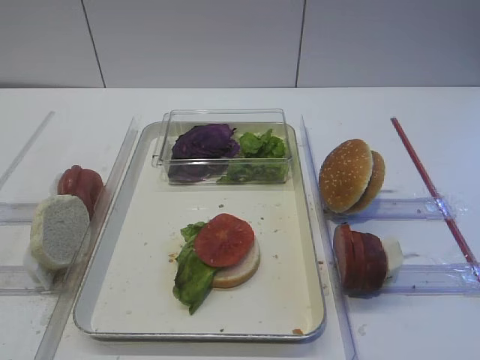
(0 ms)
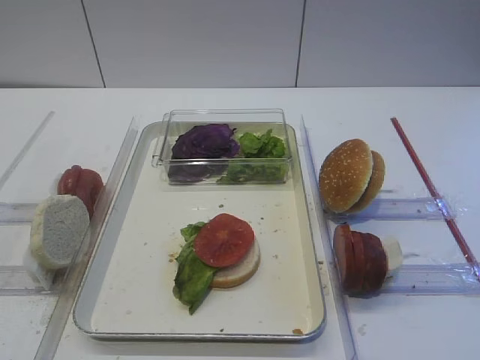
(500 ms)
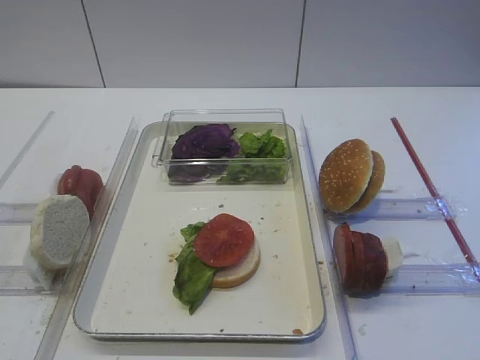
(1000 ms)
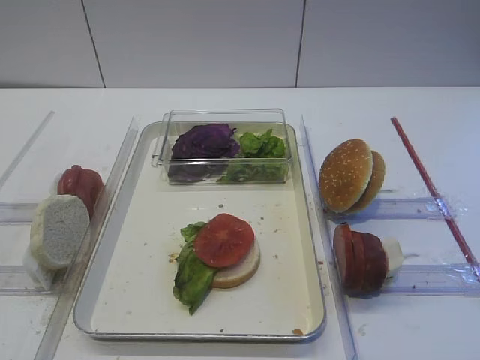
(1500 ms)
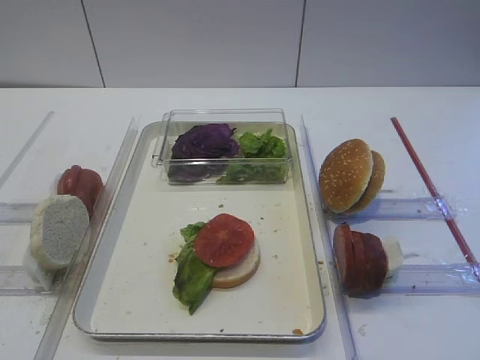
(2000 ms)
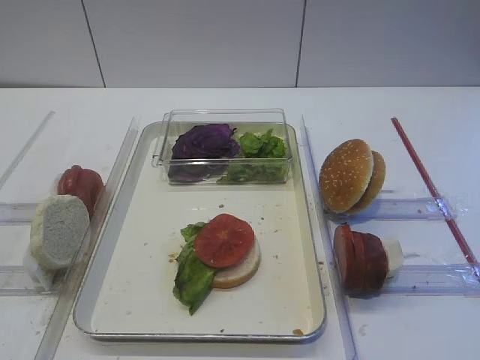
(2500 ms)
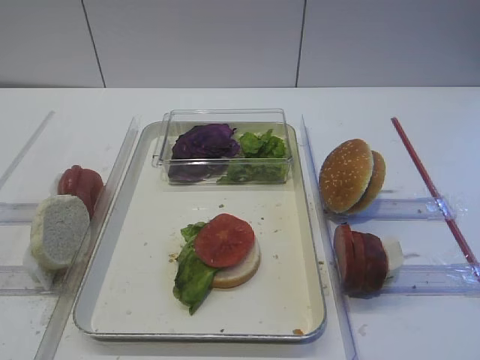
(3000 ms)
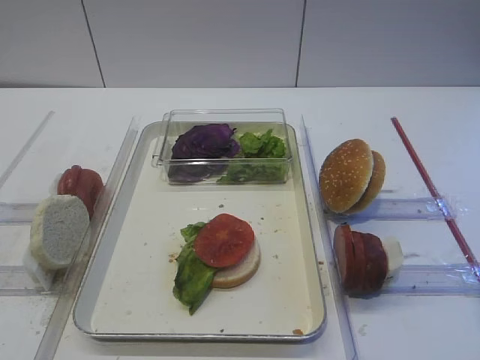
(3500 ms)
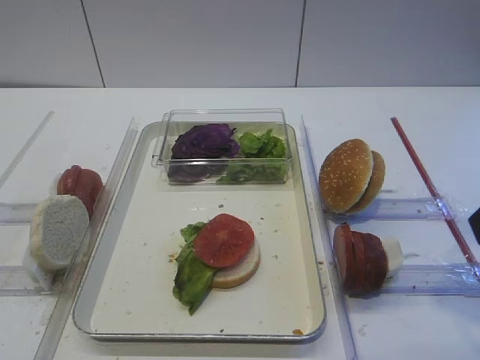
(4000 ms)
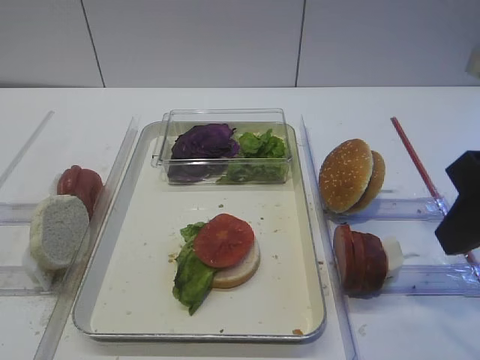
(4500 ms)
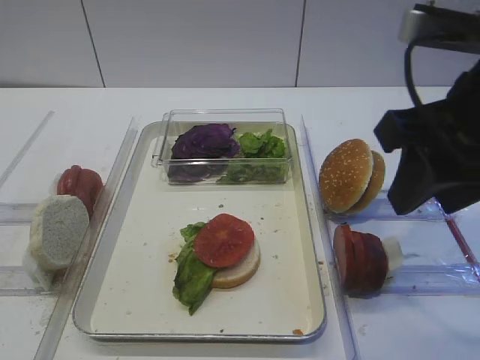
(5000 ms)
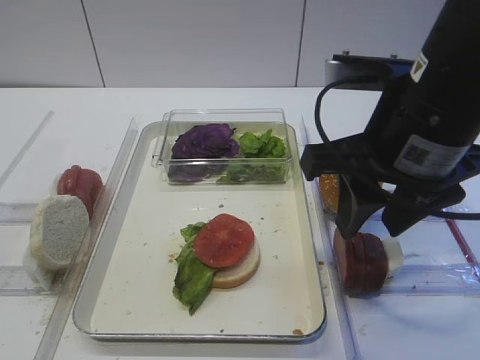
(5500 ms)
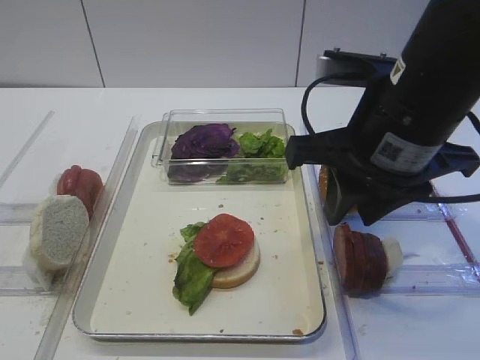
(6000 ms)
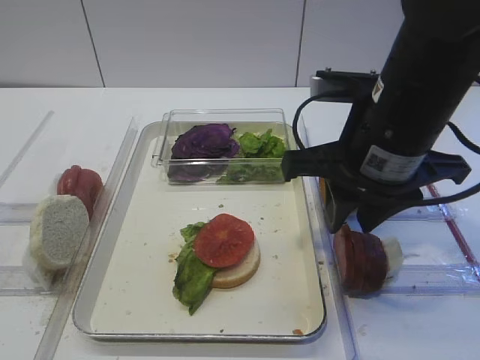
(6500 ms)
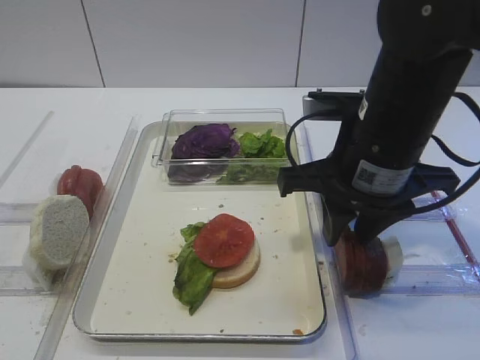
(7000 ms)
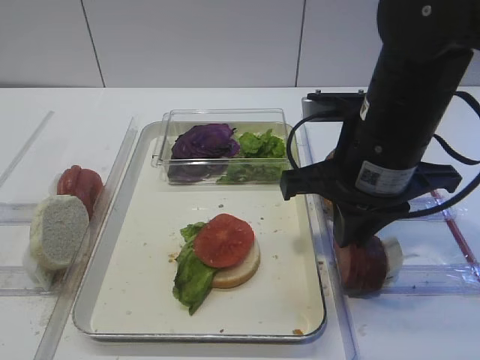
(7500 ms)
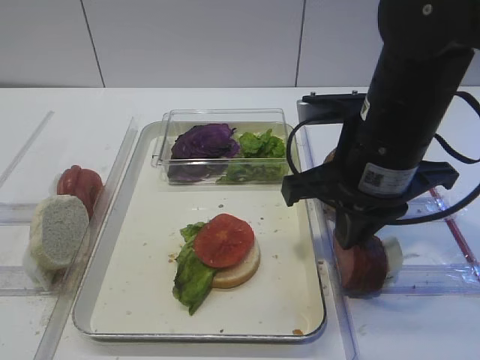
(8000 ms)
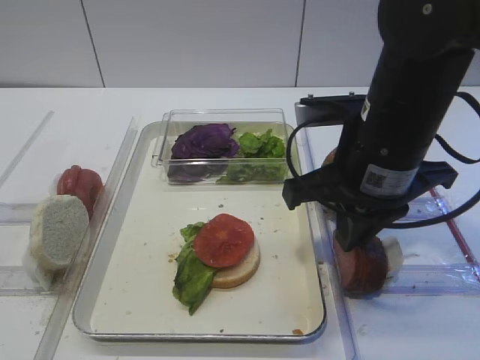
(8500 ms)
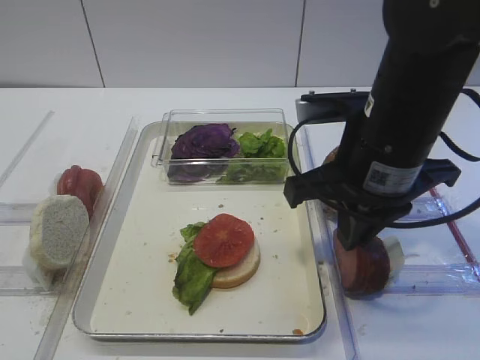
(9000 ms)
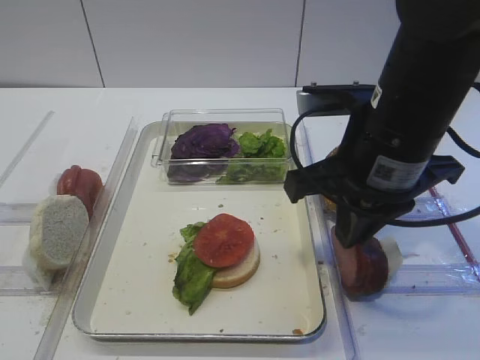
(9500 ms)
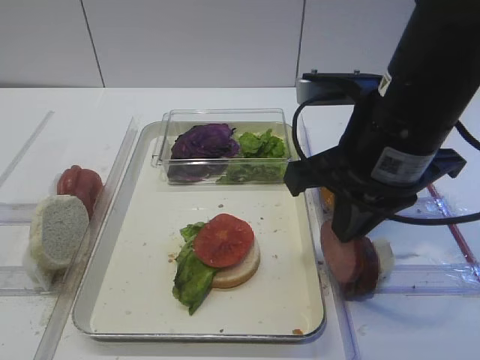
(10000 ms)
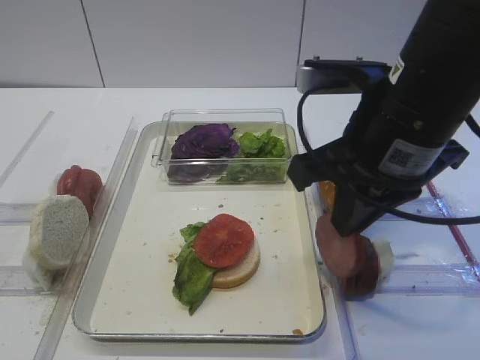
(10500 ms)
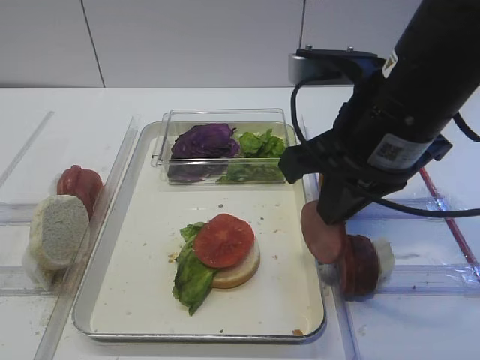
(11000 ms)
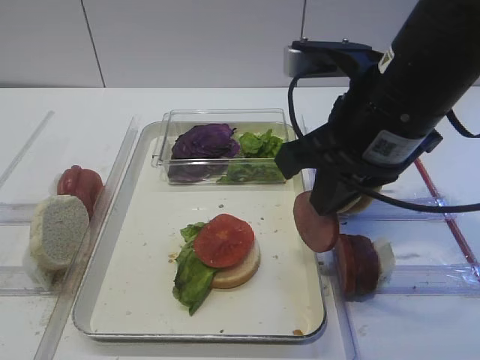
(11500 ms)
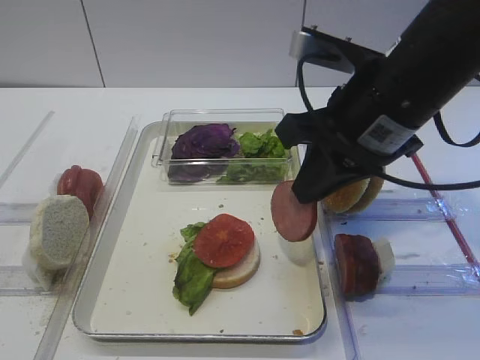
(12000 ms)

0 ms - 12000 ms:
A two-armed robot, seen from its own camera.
Step, 0 ms - 10000 ms: Pick up the cutlet with the right gripper.
2000 ms - 4000 ms: The right gripper shifts some 15 cm forward.
4000 ms - 6000 ms: The right gripper travels to the left and forward by approximately 15 cm.
6000 ms - 8000 ms: The right gripper closes up.
8000 ms - 10000 ms: The grippers make only small movements.
10000 ms - 12000 ms: The grippers stay close to where they were, moving slightly.

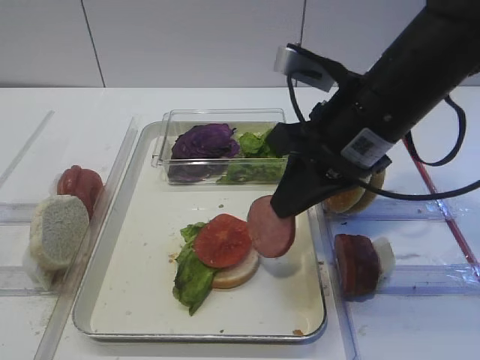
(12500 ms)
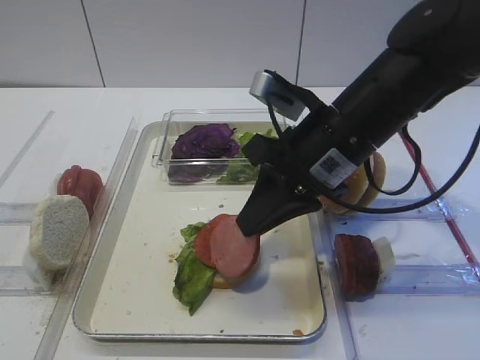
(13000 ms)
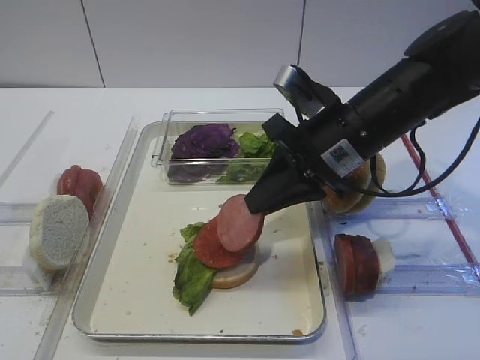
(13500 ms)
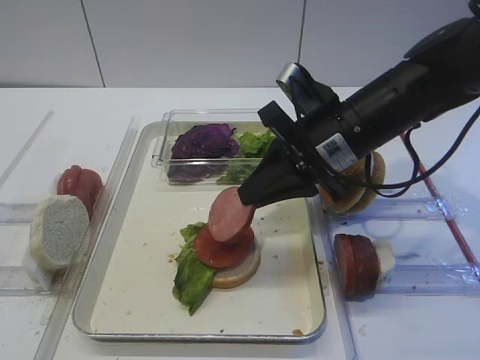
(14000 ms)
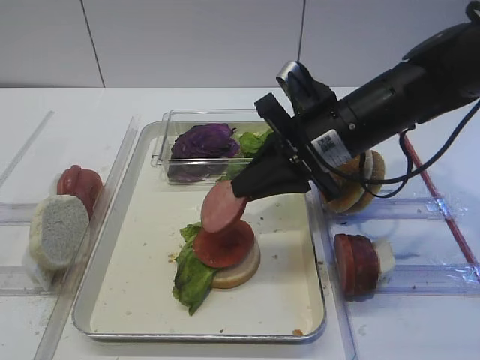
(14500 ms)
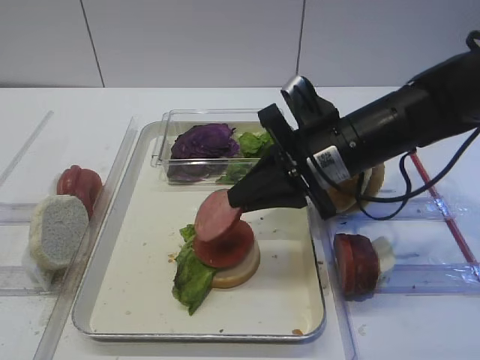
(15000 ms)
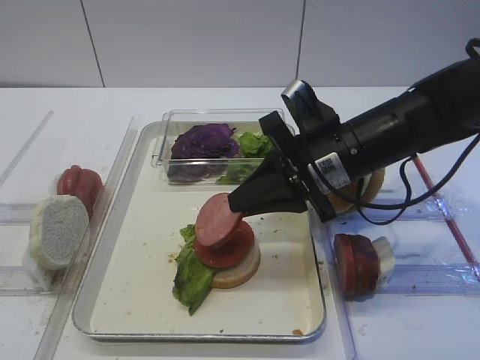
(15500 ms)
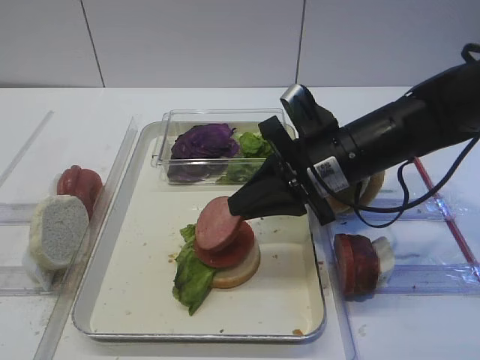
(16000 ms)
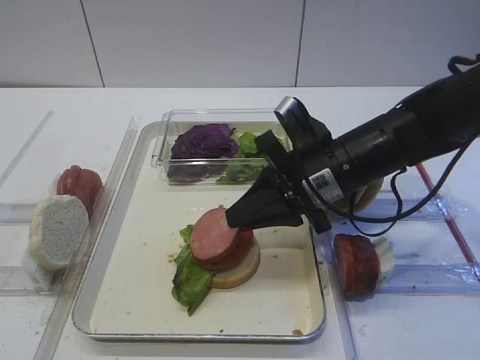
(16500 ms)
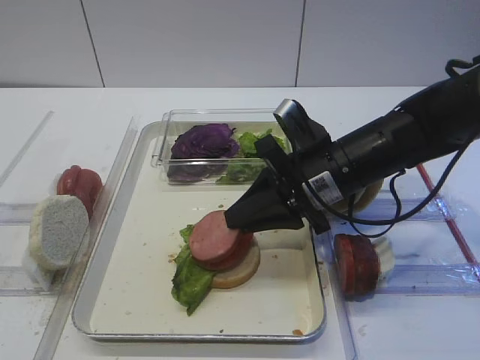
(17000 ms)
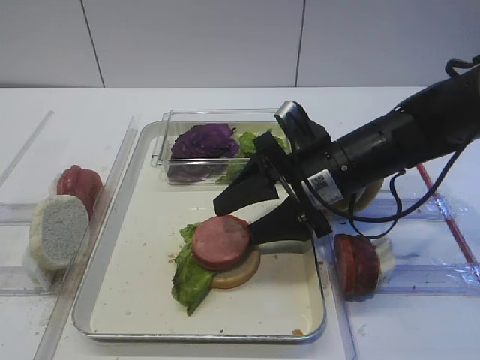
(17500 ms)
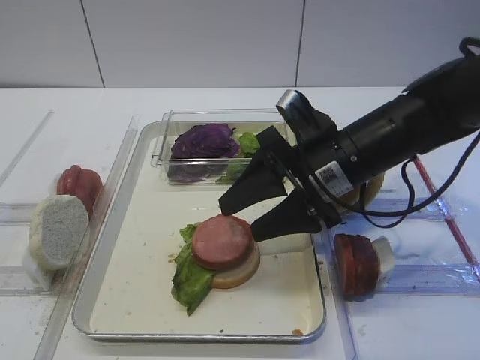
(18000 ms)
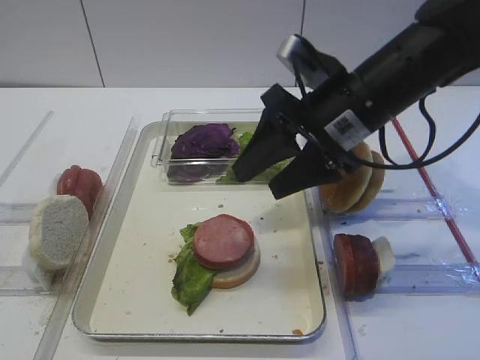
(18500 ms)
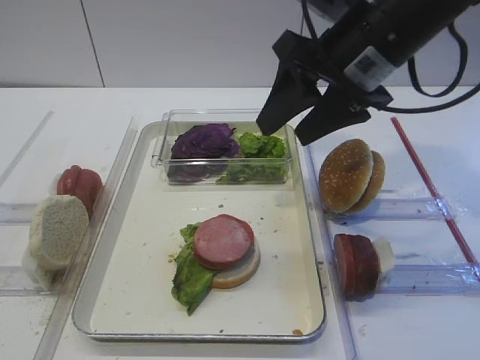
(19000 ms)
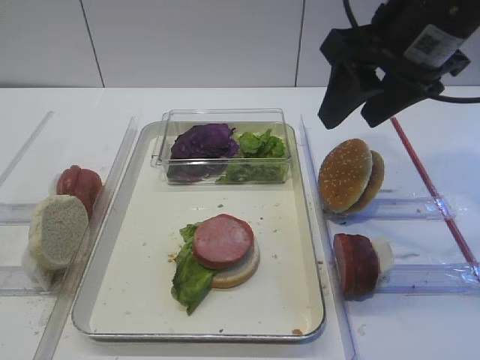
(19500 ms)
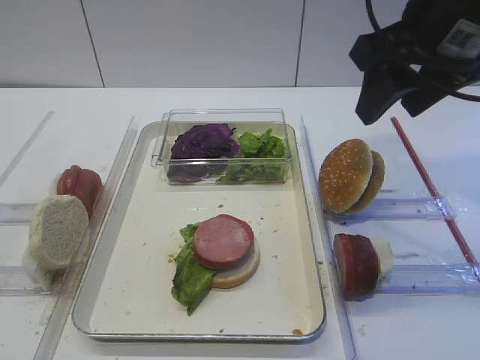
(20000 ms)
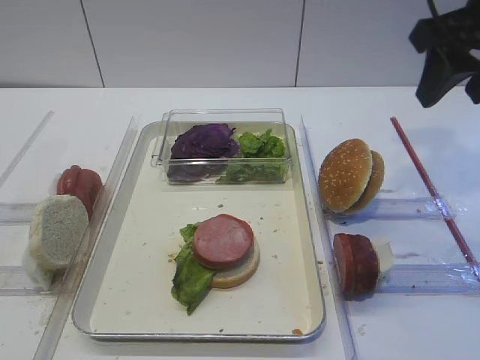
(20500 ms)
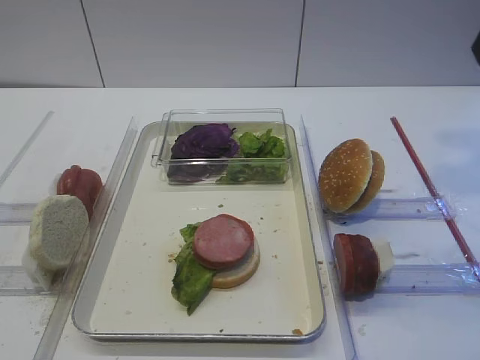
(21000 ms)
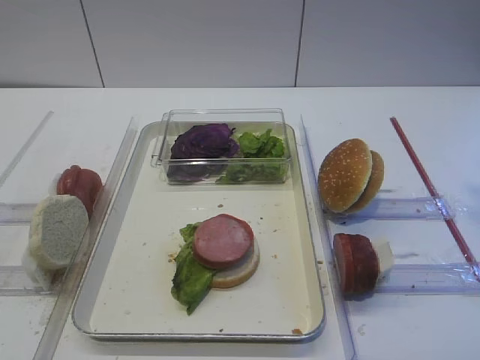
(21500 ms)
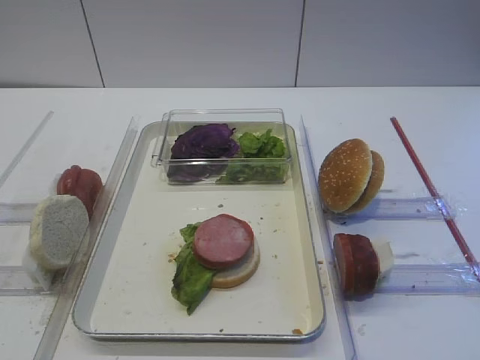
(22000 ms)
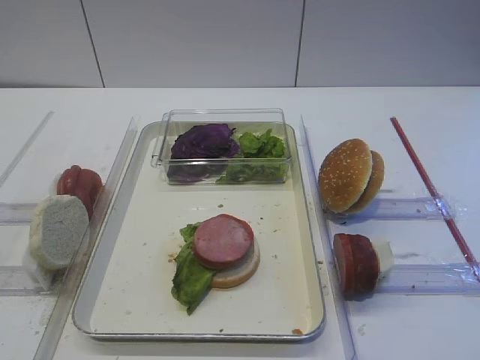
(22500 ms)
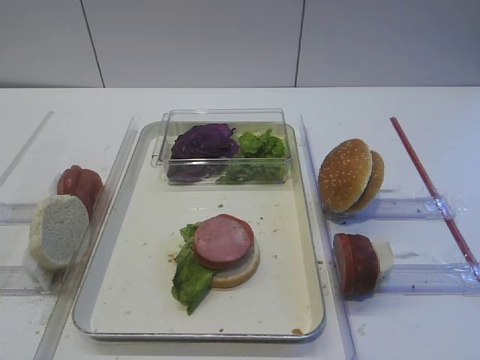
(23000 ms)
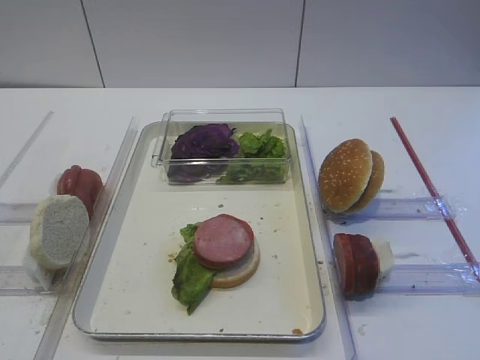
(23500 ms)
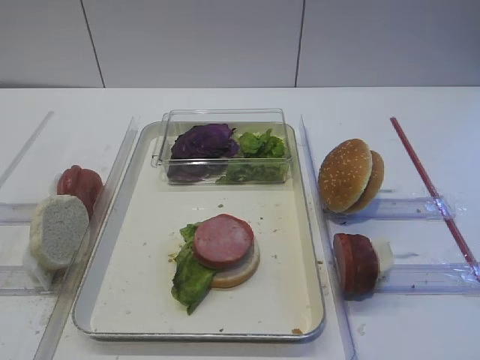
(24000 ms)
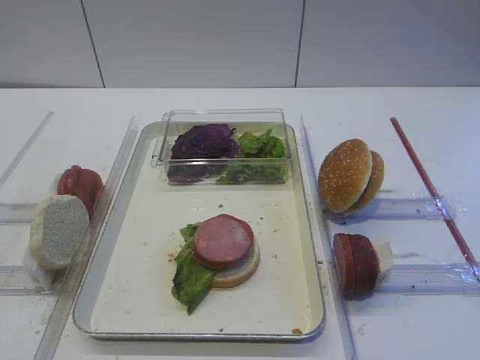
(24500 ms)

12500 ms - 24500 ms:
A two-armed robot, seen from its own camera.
Step, 12500 ms - 18500 ms: Place the cutlet on the tomato slice with the right gripper.
12500 ms - 14500 ms: The right gripper changes place by roughly 5 cm.
14500 ms - 16500 ms: There are only small adjustments of the grippers.
16500 ms - 18500 ms: The right gripper goes roughly 5 cm upward, and opens.
18500 ms - 20500 ms: The right gripper shifts about 15 cm to the right and upward.
20500 ms - 22500 ms: The right gripper is displaced backward and upward by roughly 25 cm.

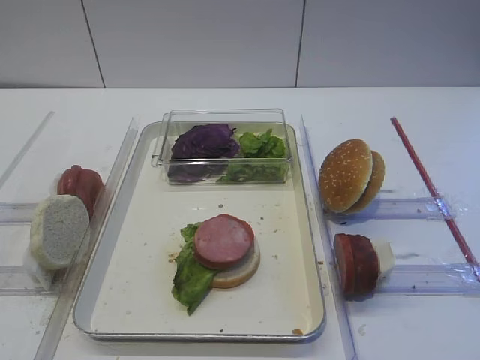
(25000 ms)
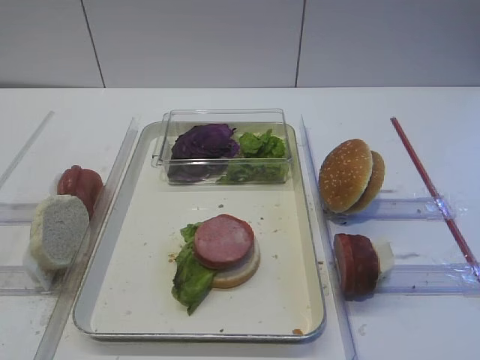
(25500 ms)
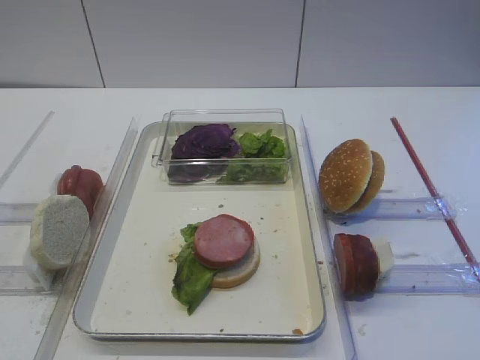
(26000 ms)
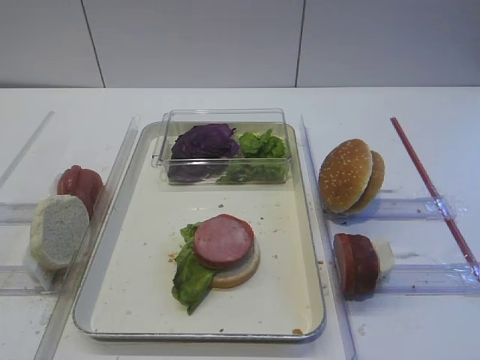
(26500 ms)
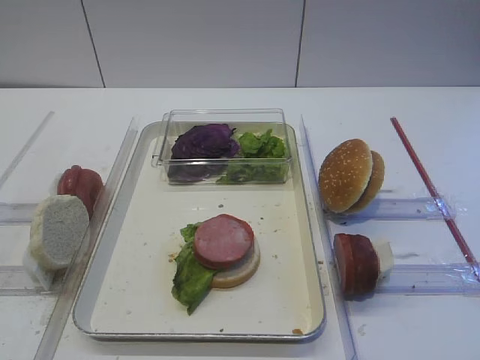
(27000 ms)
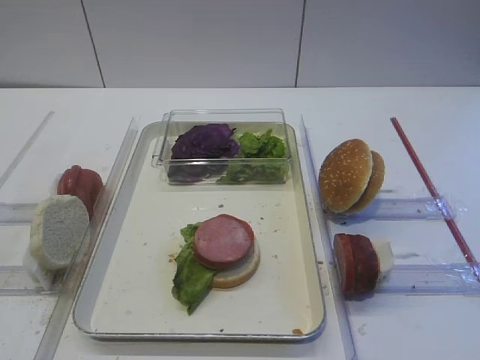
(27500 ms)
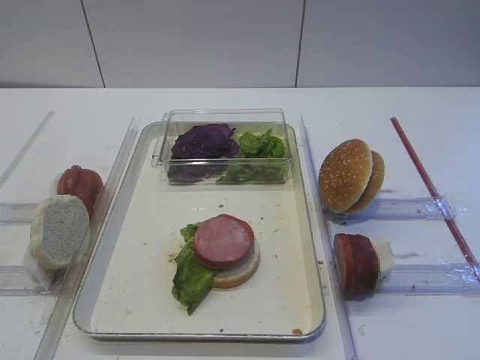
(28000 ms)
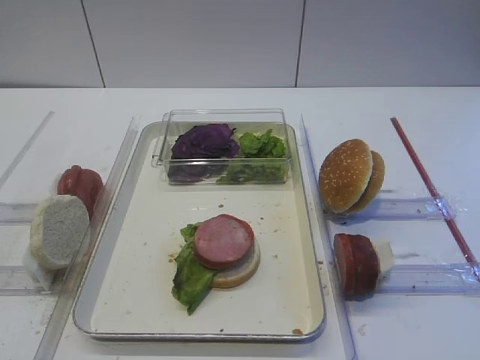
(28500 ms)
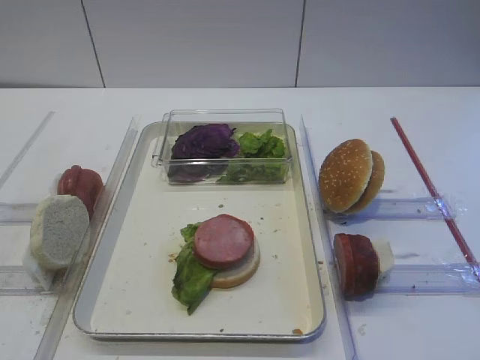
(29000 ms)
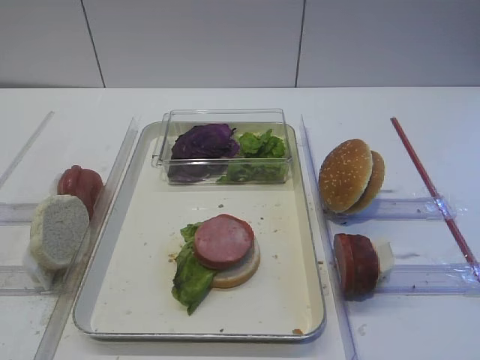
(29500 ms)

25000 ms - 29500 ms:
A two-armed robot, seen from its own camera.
25000 ms - 29500 ms: Both grippers stay about where they are.
